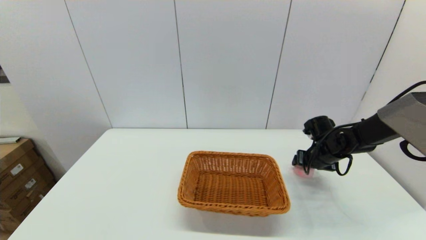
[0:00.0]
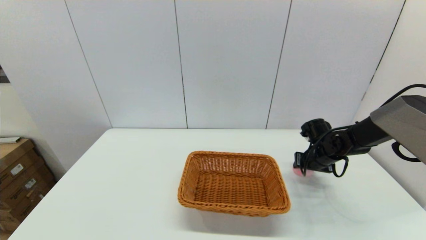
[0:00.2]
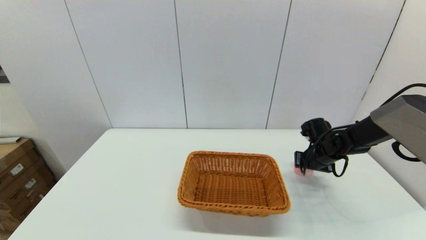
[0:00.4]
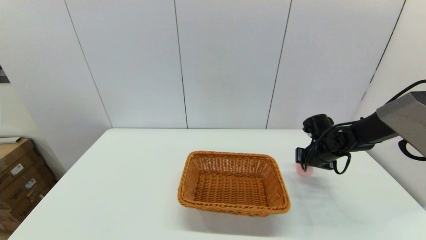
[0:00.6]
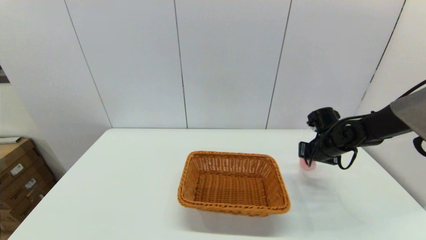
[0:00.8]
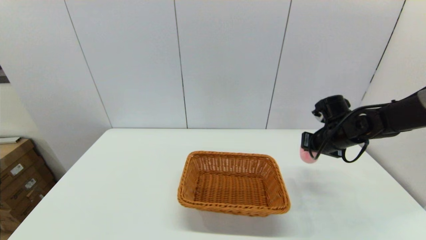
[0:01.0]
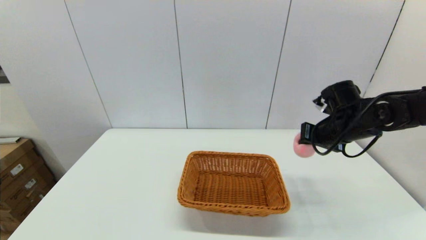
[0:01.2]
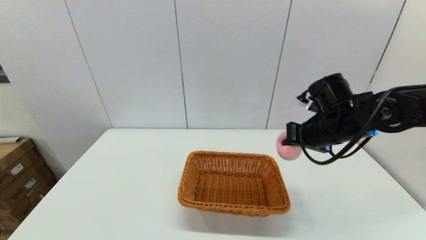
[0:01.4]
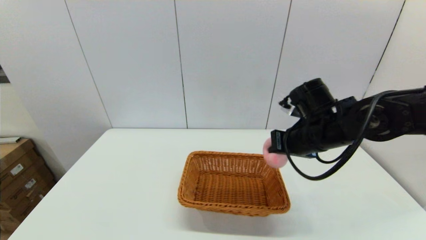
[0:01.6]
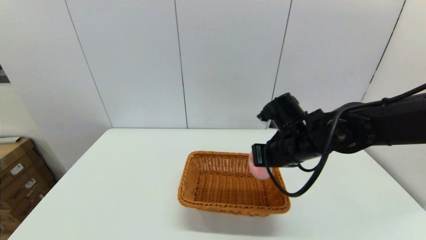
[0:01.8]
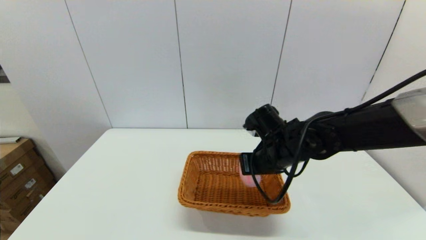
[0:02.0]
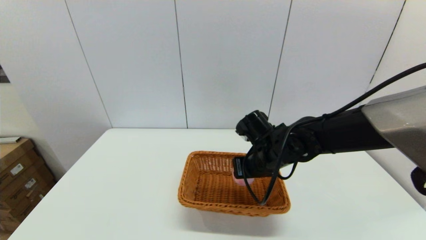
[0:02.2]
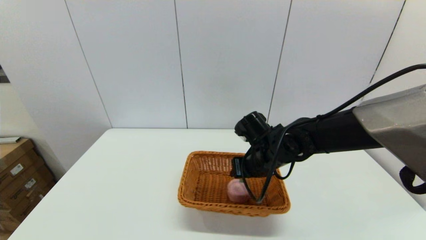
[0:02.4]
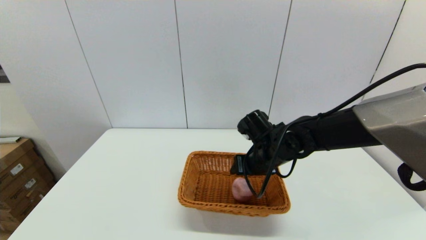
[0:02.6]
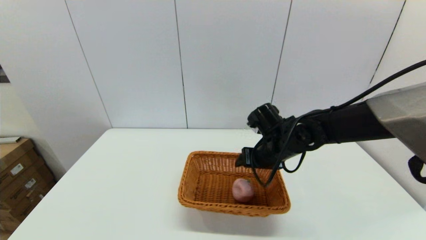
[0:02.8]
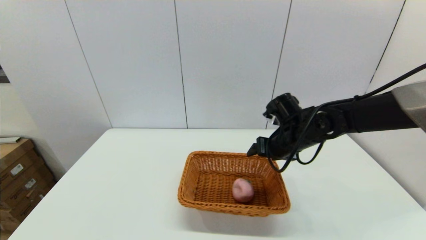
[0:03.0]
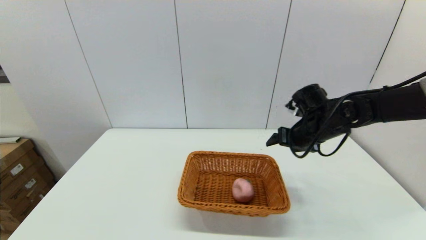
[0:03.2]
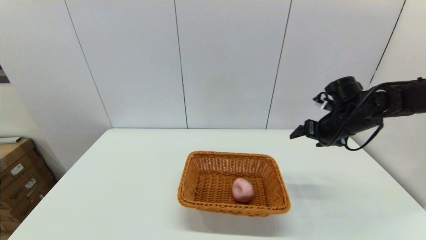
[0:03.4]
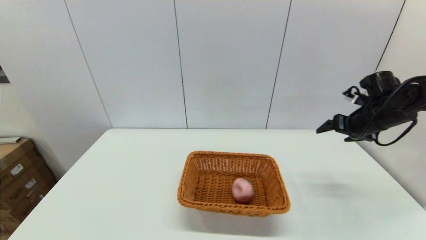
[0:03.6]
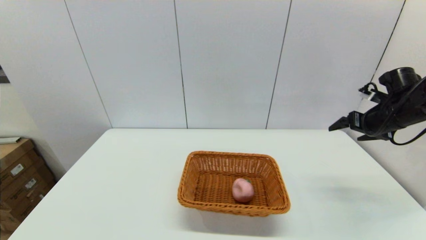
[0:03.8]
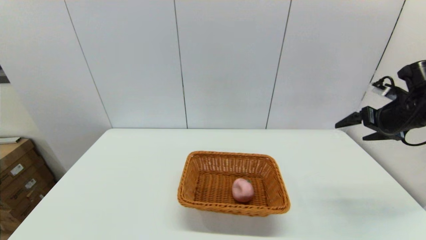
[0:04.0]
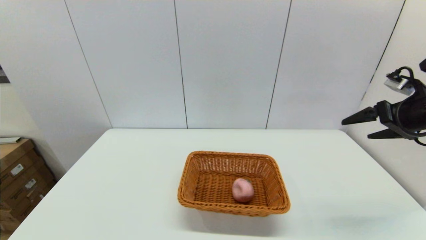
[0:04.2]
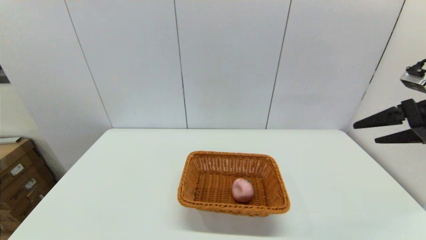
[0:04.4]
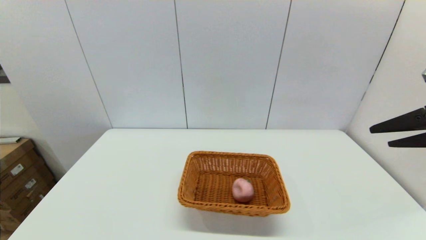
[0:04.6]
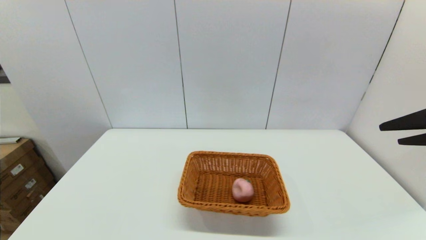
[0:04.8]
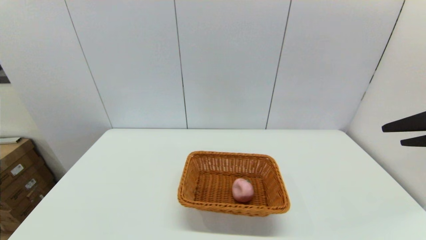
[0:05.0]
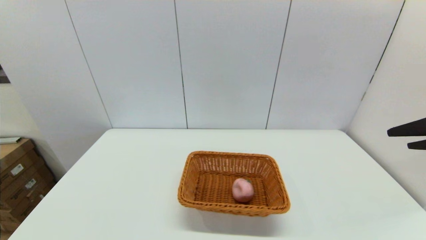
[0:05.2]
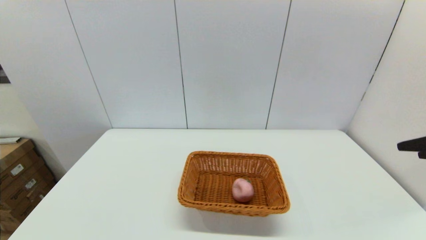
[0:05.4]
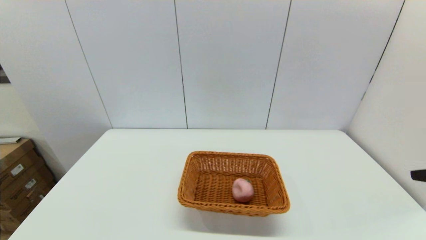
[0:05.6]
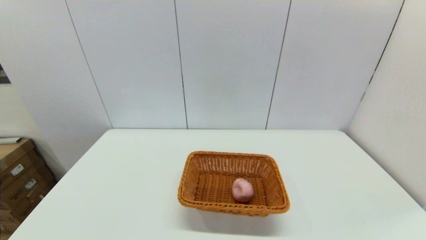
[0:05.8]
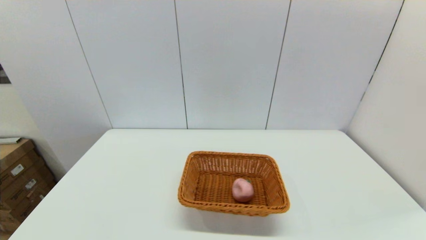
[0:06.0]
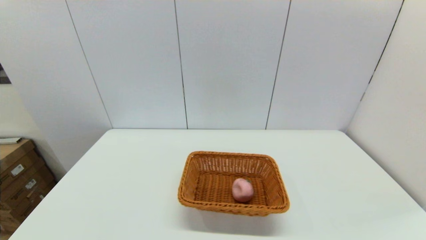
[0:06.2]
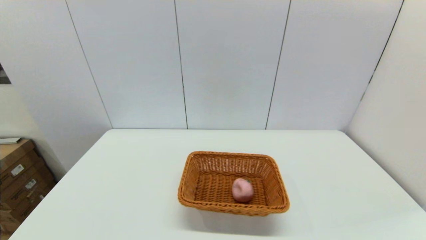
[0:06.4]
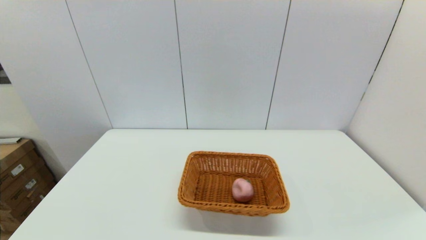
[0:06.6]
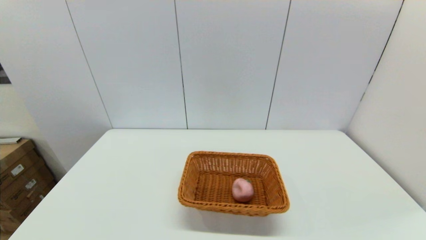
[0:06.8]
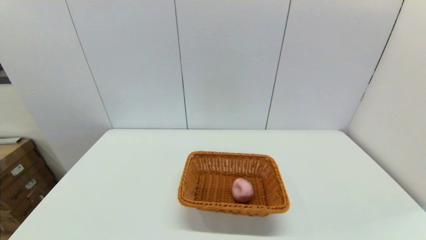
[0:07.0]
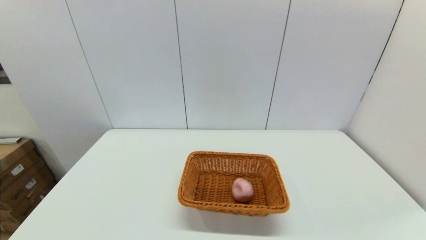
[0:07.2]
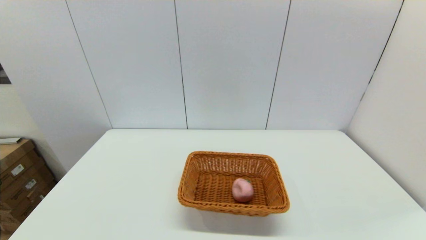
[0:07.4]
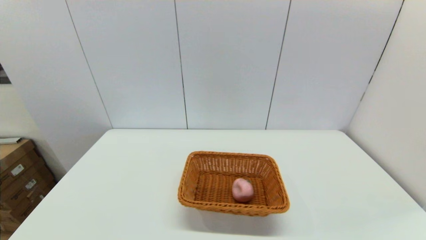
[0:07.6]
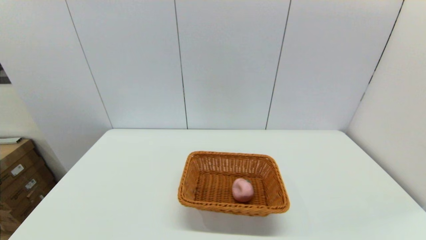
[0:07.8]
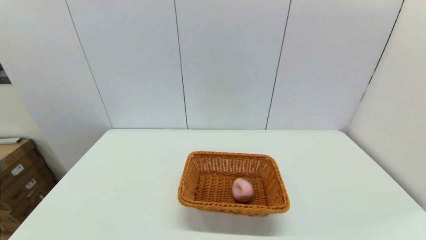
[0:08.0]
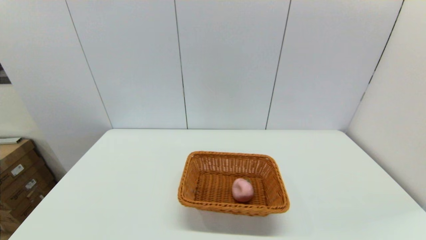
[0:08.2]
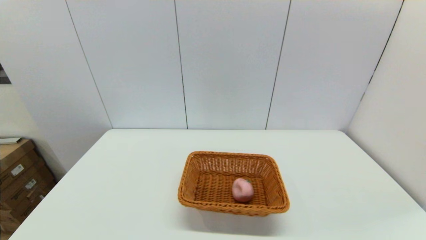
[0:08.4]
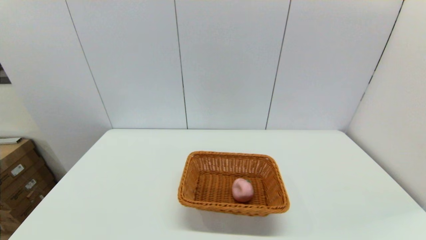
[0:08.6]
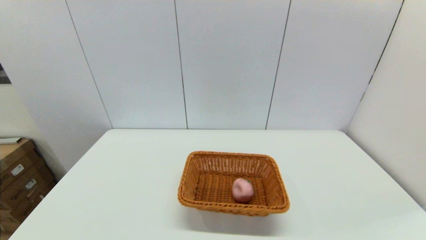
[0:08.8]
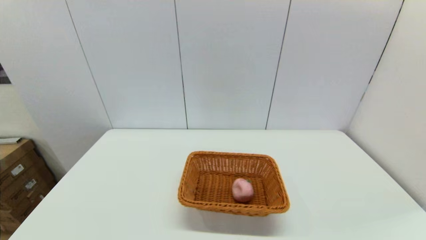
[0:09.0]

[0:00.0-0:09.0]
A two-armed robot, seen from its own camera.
Step, 0:00.6 to 0:02.6: Place the peach into the light basket with the right gripper.
0:00.0 to 0:01.6: The right gripper is displaced upward, to the left and backward by about 20 cm, and closes up.
0:01.6 to 0:03.0: The right gripper travels forward by approximately 5 cm, moves roughly 5 cm to the left and comes back, and opens up.
0:03.0 to 0:04.4: The right gripper moves to the right, upward and backward, some 25 cm.
0:04.4 to 0:06.0: The right gripper moves backward, some 20 cm.
0:07.6 to 0:09.0: Neither gripper changes place.
